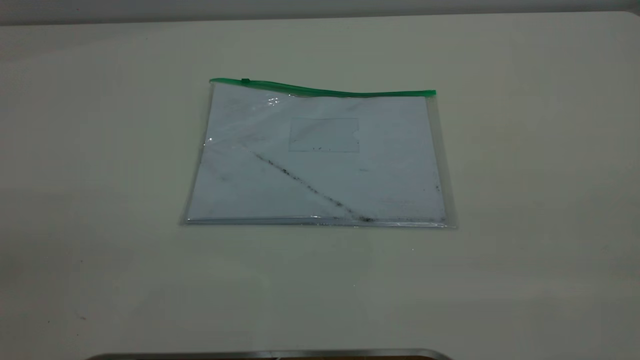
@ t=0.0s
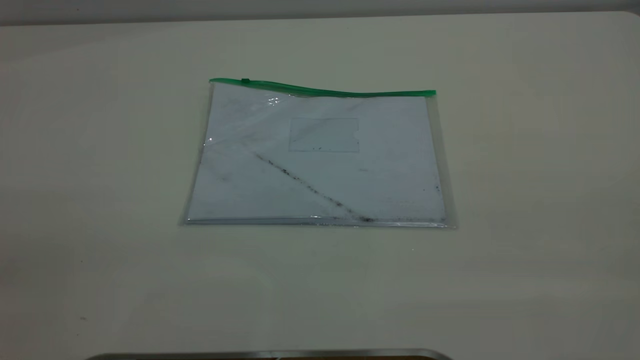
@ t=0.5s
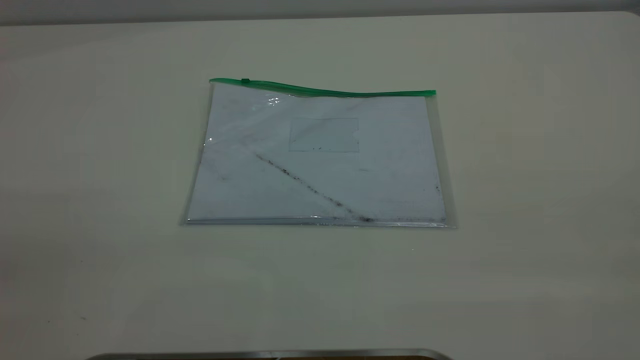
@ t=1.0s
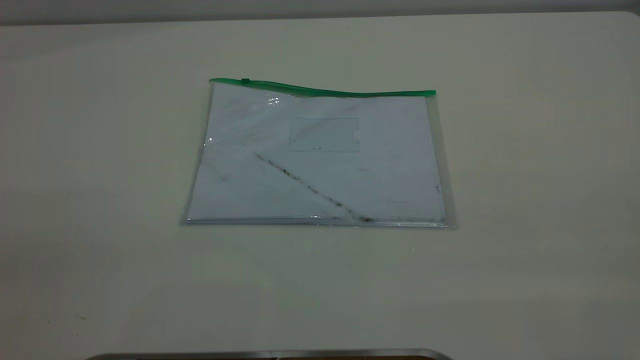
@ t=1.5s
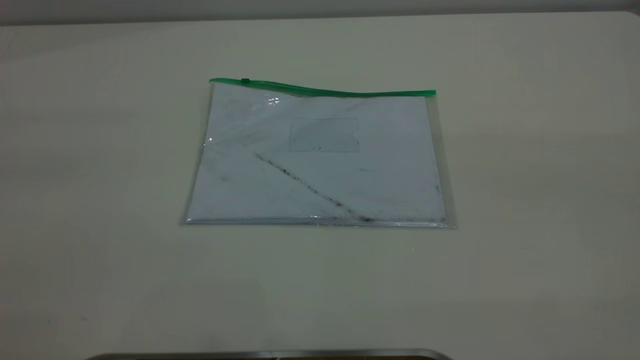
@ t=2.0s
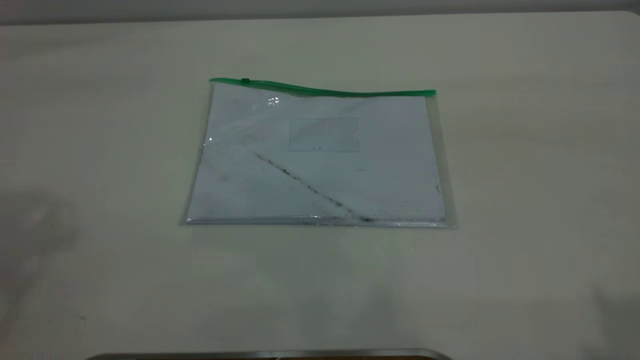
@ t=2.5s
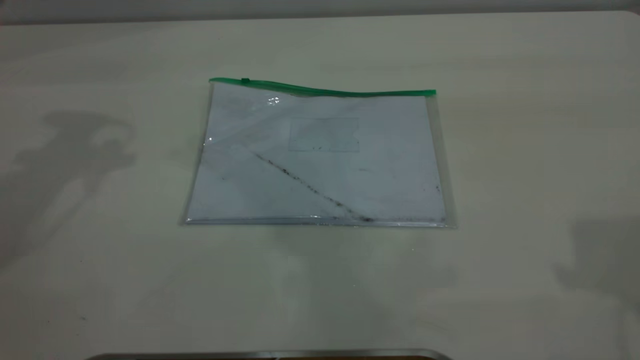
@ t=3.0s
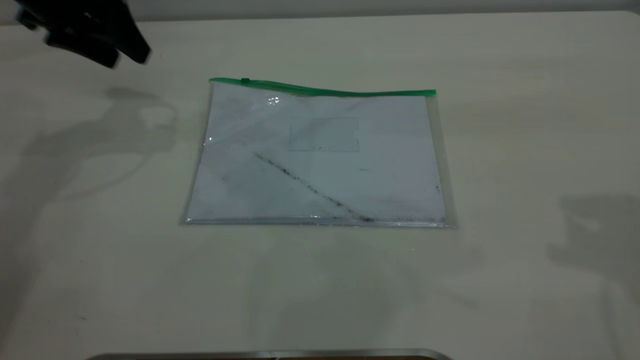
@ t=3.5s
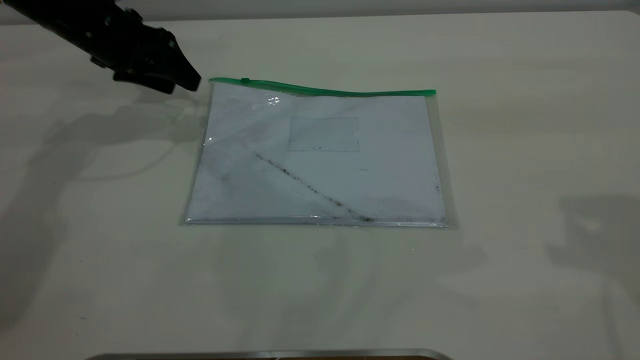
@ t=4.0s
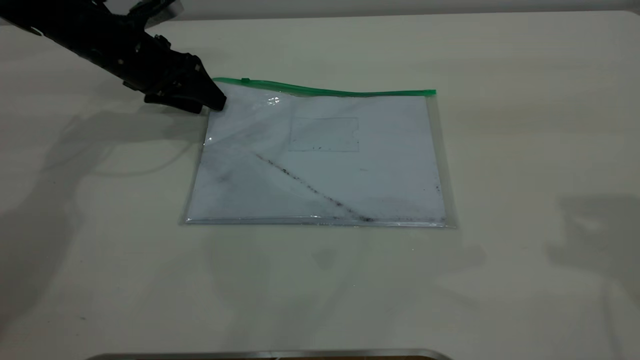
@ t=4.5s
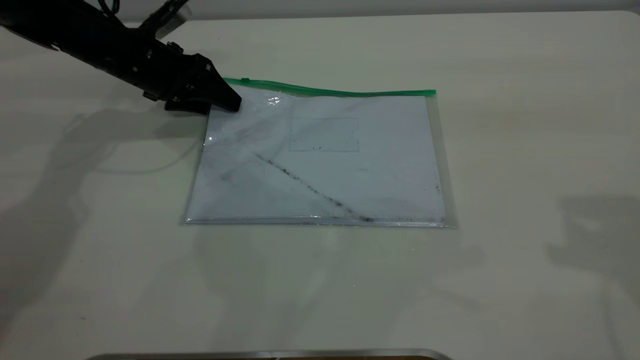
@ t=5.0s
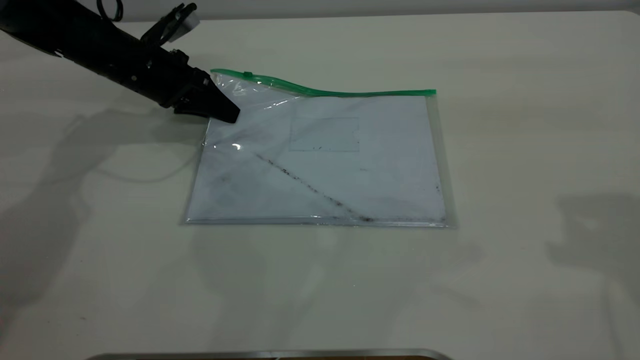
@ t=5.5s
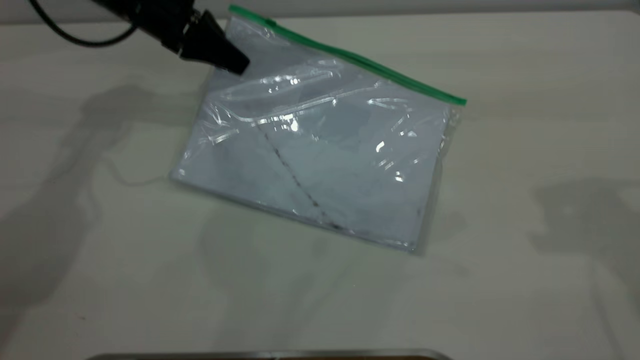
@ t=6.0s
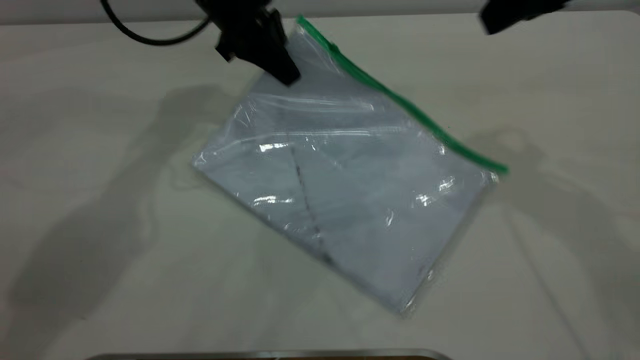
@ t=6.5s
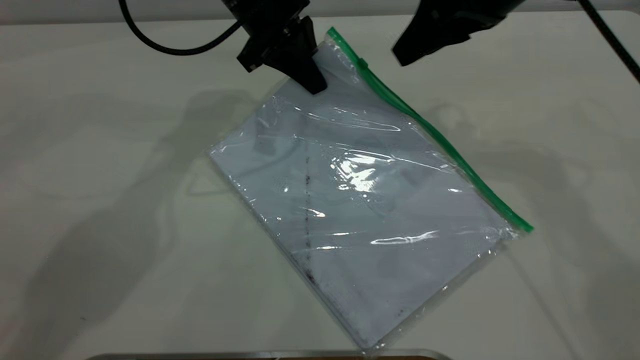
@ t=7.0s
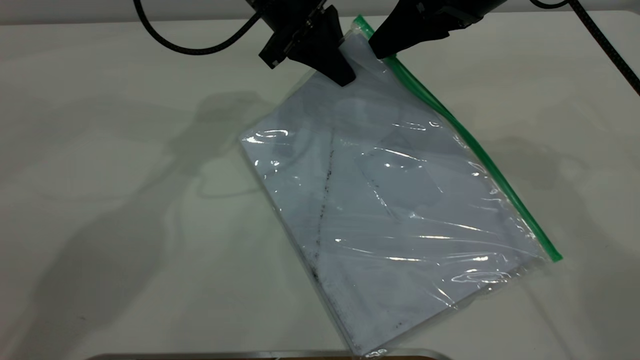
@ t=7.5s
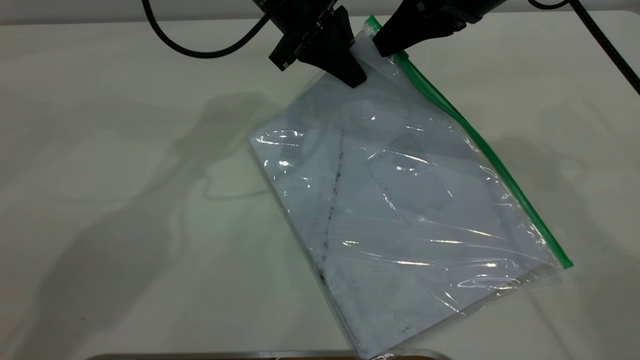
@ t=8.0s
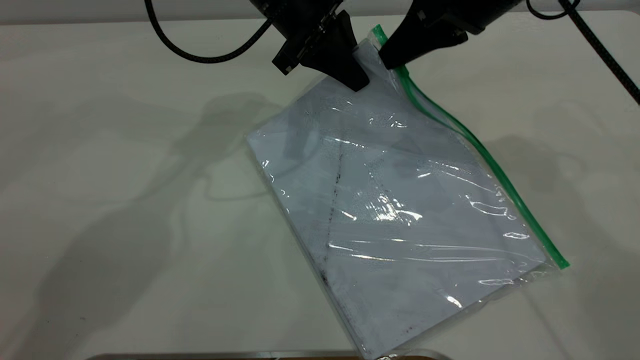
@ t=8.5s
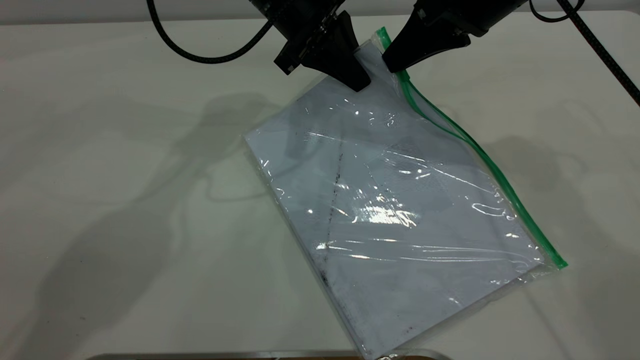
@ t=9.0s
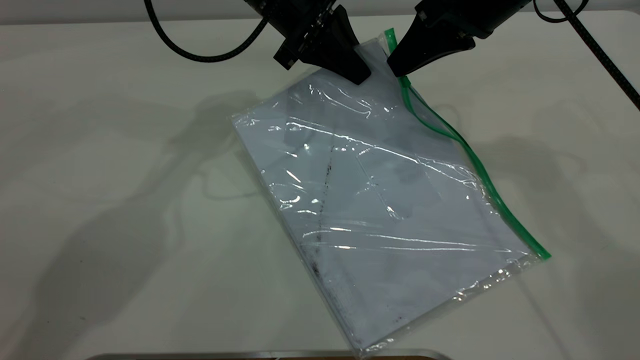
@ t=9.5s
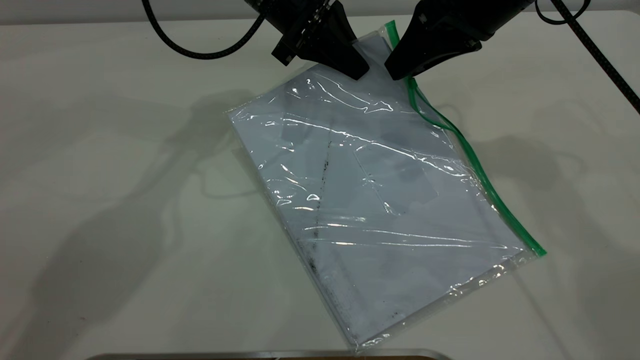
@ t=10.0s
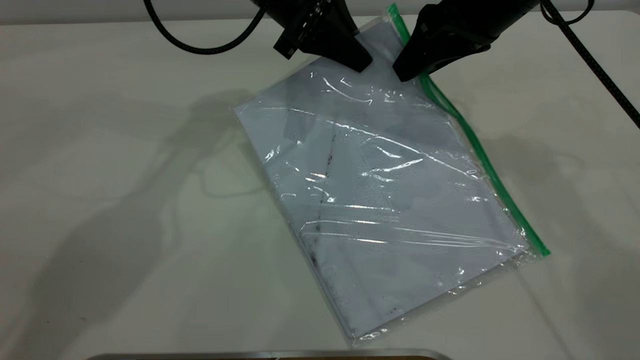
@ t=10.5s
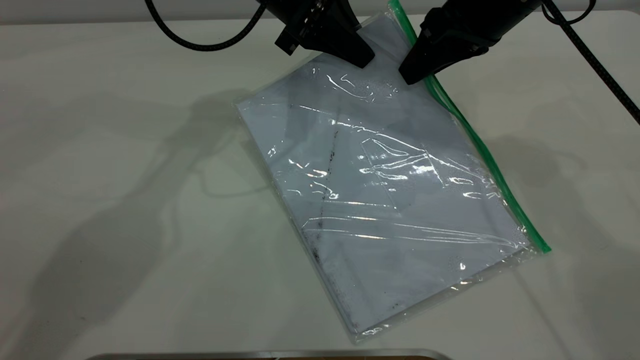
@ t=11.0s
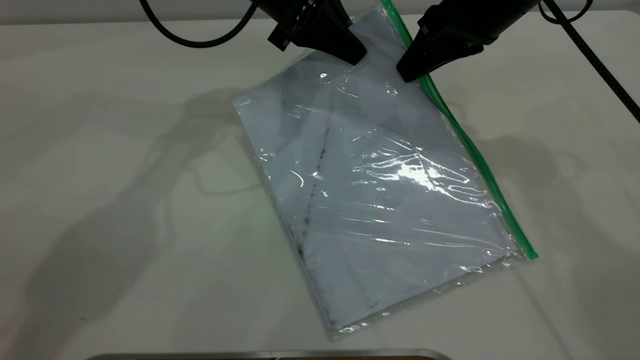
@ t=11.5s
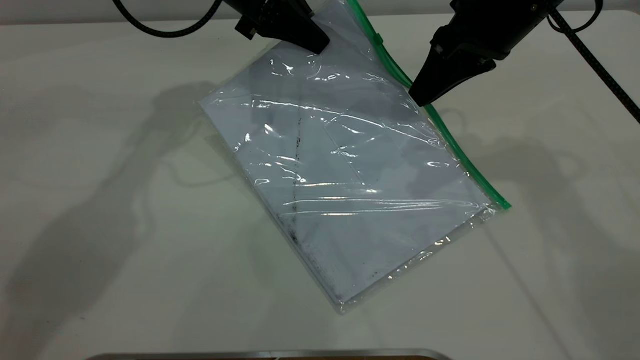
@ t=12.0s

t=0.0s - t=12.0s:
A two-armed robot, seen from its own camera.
Step, t=3.5s - t=5.5s: Pick up the transparent plastic bag with the left gripper.
t=2.0s - t=4.0s: The left gripper goes some 50 cm forward and downward.
t=4.0s - t=6.0s: The left gripper goes about 5 cm to the right, and closes its fingers.
t=6.0s - t=8.0s: The left gripper is displaced to the right by roughly 15 cm. The right gripper shifts roughly 20 cm forward, to the left and downward, and closes up.
t=8.0s - t=10.0s: The right gripper opens up.
t=10.0s - t=12.0s: The right gripper closes up; the left gripper shifts by some 5 cm.

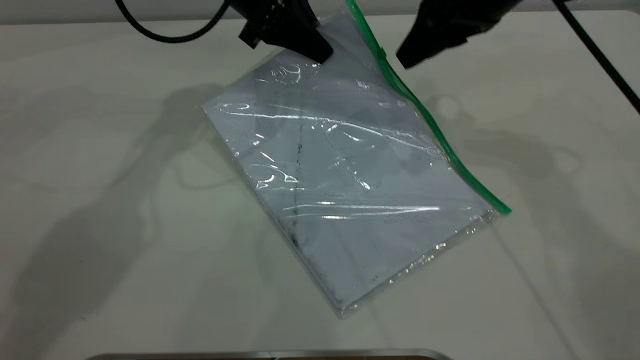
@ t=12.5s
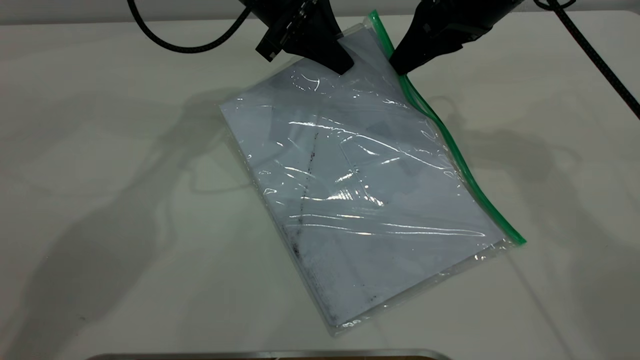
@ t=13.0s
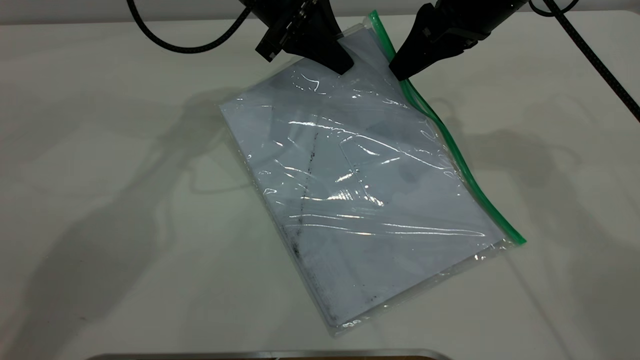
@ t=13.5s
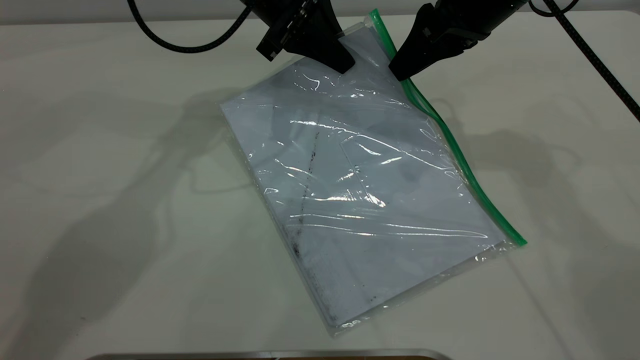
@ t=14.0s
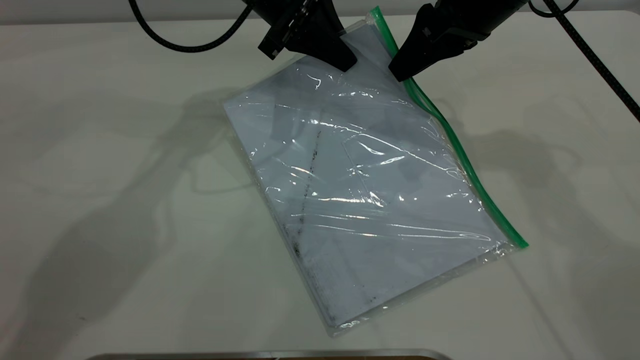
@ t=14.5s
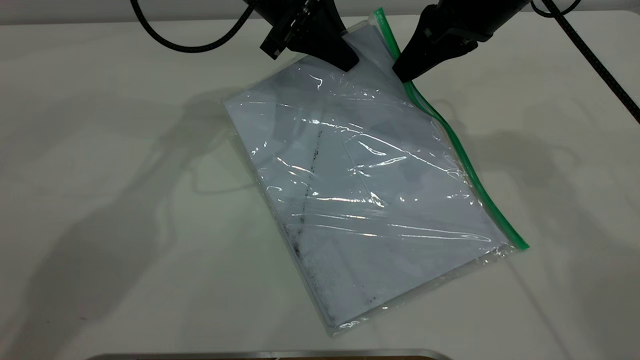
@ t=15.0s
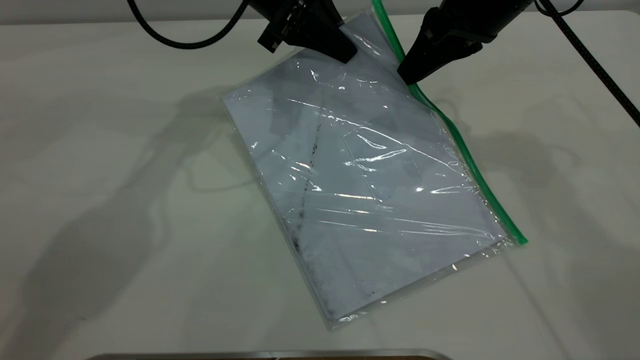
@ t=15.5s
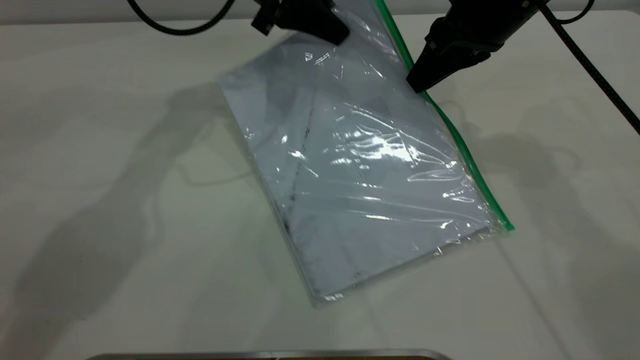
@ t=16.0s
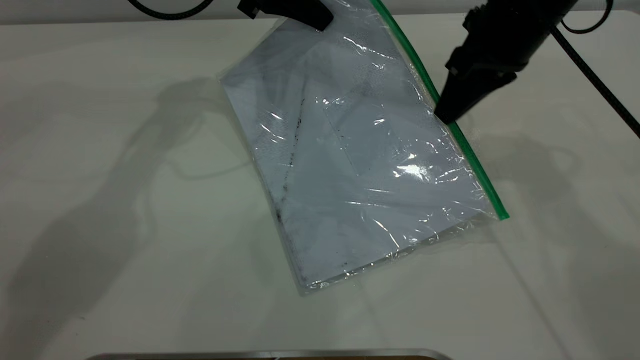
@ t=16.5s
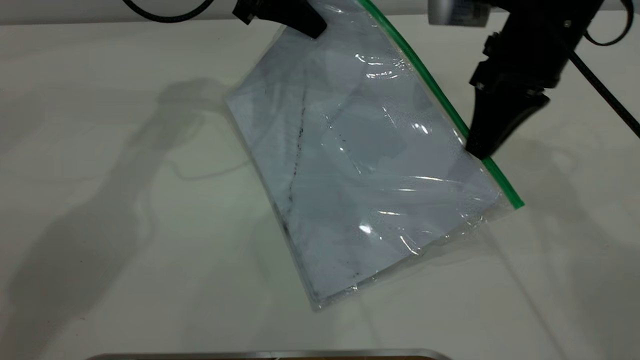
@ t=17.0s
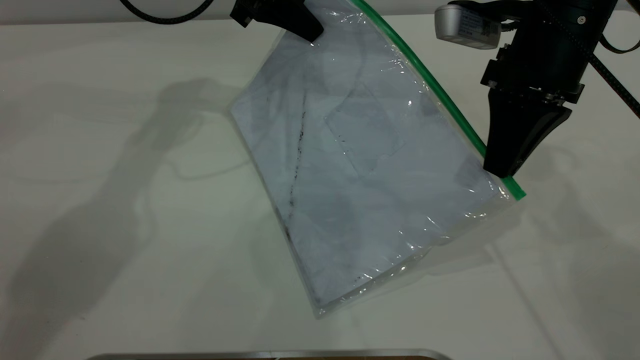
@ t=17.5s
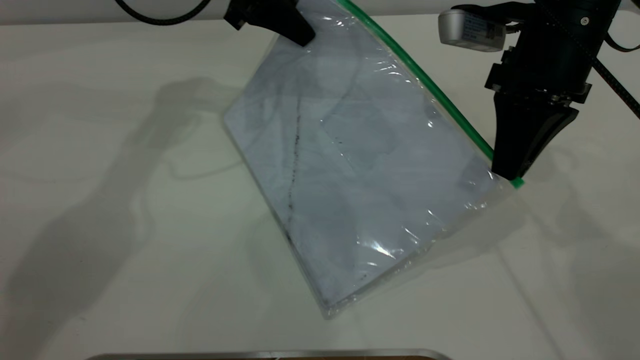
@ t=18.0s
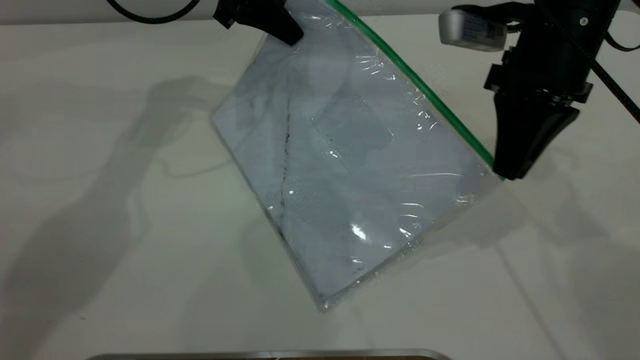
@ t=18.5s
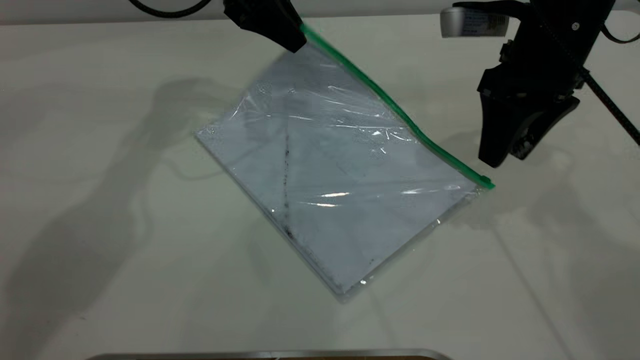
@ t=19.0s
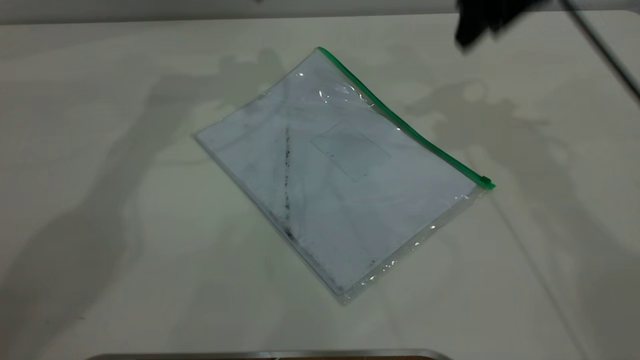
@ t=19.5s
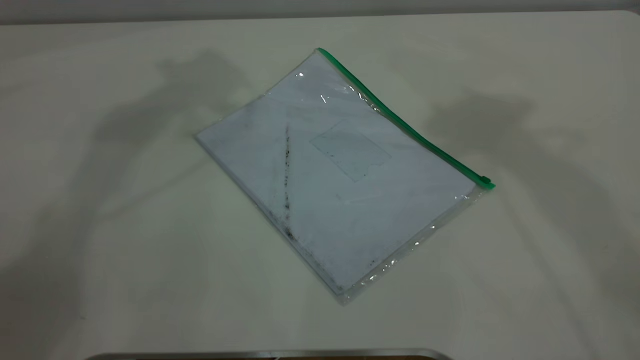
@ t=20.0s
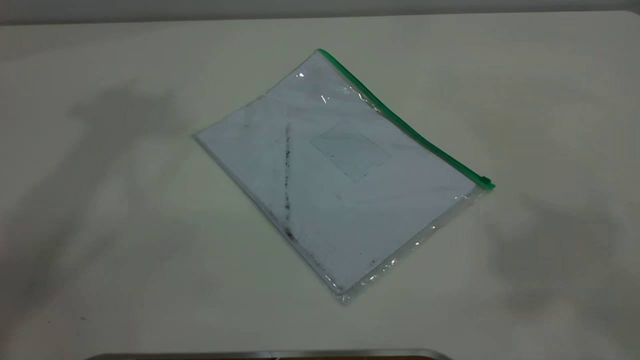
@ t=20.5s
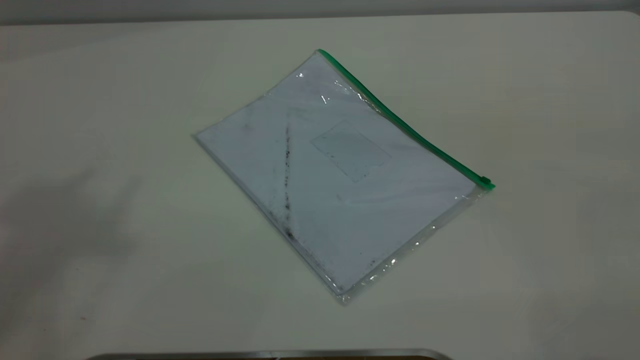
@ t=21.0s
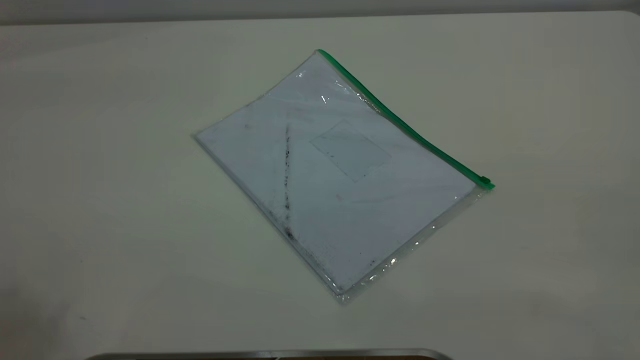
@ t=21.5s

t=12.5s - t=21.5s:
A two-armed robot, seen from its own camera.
Step, t=12.5s - t=18.5s: Pulling up the zipper on the transparent plastic bag with the right gripper to close it.
t=12.5s - t=14.5s: The right gripper closes up.
t=14.5s - t=17.0s: The left gripper ends up some 5 cm from where it was, while the right gripper ends up roughly 5 cm from where it was.
t=17.0s - t=19.5s: The left gripper travels upward by about 10 cm, and opens; the right gripper moves forward and upward, some 10 cm, and opens.
t=19.5s - t=21.5s: The right gripper moves backward, roughly 50 cm.
